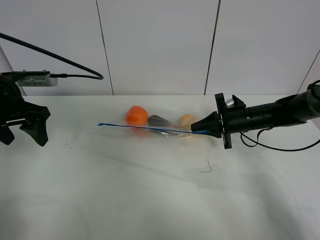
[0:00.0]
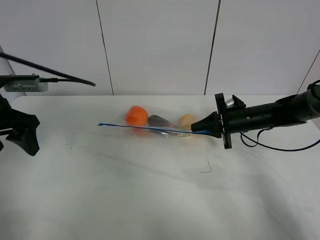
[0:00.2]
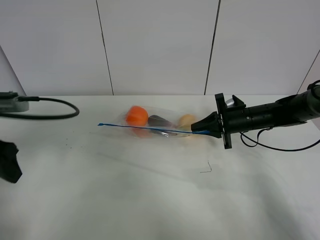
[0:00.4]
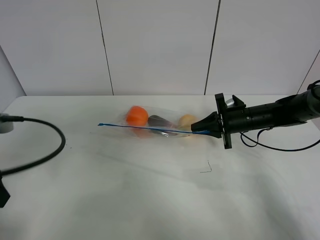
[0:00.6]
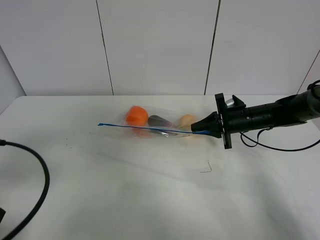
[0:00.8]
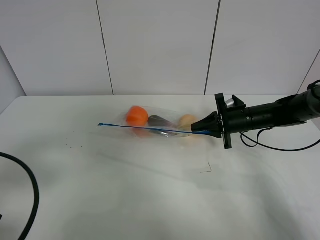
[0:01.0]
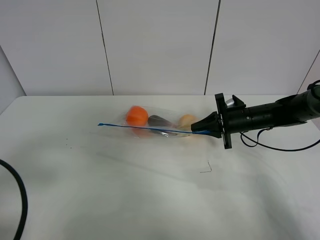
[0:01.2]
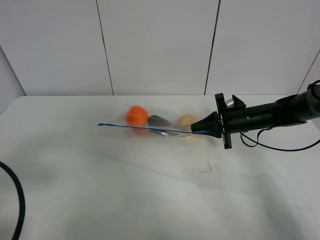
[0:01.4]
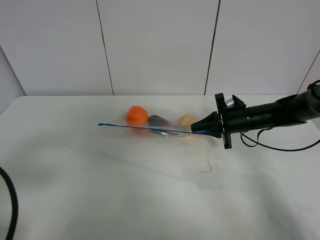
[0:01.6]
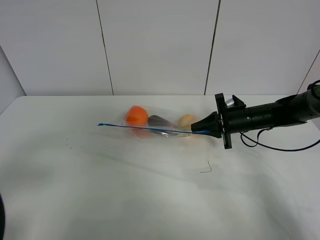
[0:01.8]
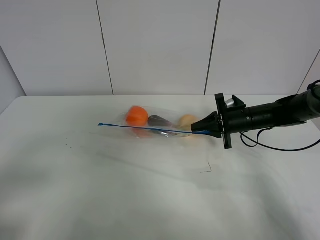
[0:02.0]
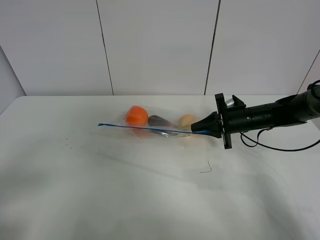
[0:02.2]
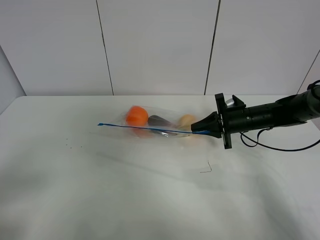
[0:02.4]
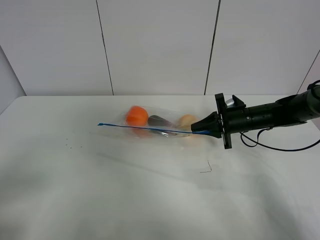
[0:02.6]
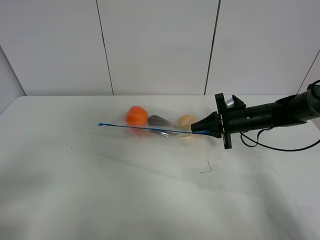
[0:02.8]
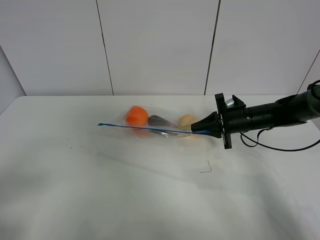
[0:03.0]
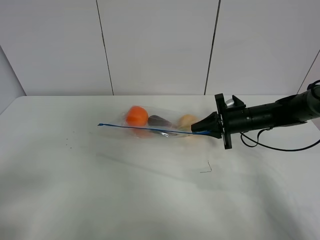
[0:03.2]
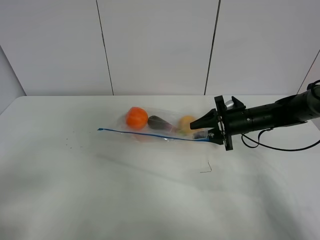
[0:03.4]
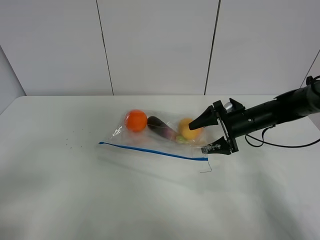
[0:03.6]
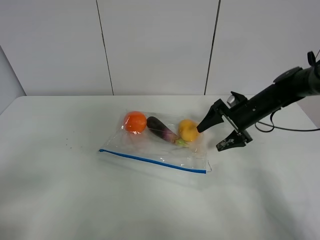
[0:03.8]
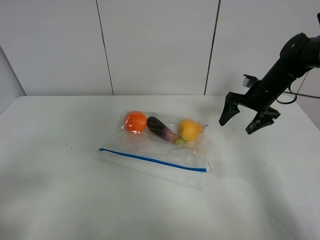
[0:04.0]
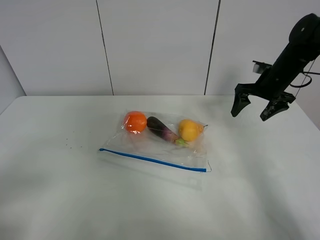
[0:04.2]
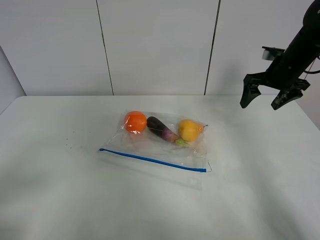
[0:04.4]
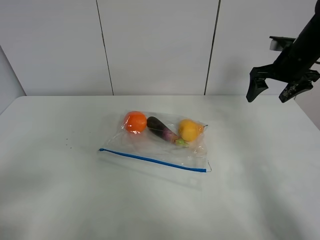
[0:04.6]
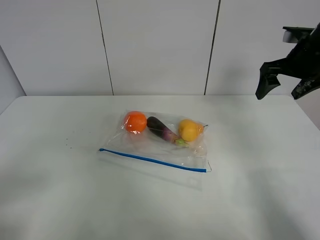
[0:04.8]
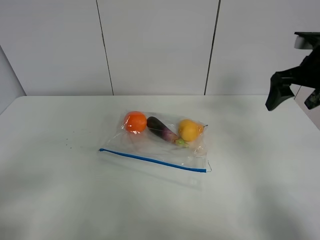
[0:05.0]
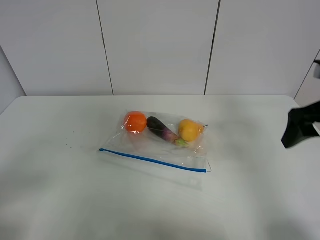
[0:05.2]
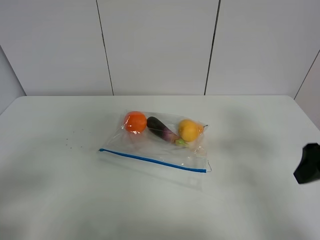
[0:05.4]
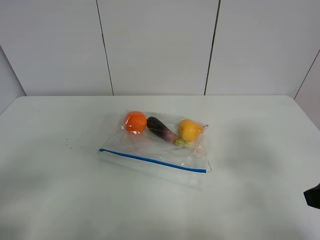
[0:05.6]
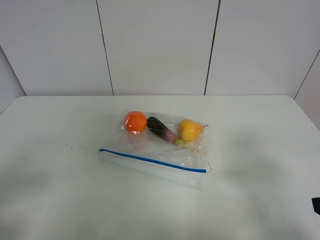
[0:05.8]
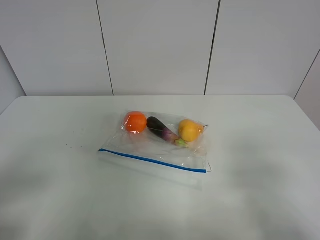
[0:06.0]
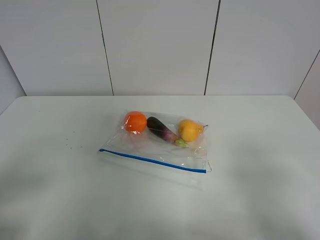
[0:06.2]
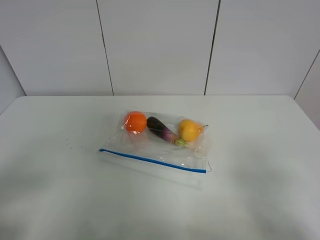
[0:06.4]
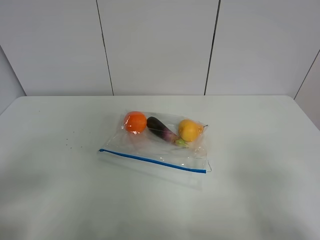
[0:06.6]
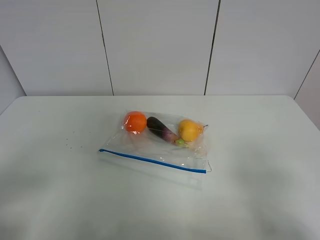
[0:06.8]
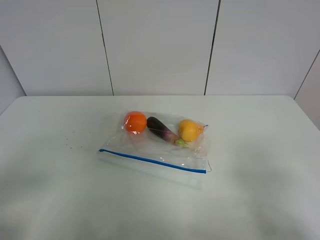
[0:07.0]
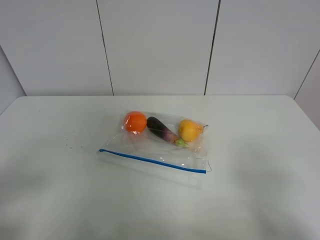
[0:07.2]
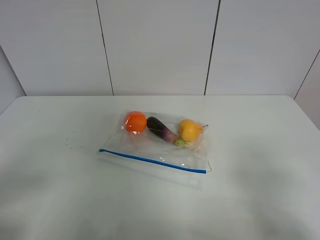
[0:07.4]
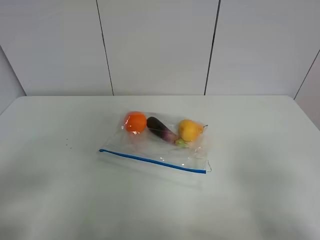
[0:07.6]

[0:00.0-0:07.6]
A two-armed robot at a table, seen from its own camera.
Step, 0:00.0 to 0:04.0: Place the fruit bag with right gripper.
0:00.0 to 0:01.6: The left gripper heads backward, covering some 20 cm.
0:01.6 to 0:03.0: The left gripper travels backward by some 5 cm.
0:03.0 to 0:04.6: The right gripper travels upward and to the right by approximately 20 cm, and opens up.
0:04.6 to 0:06.0: The right gripper heads backward, covering roughly 35 cm.

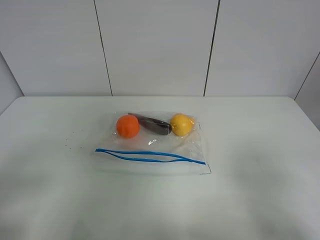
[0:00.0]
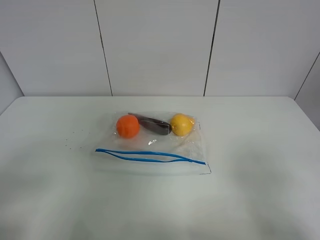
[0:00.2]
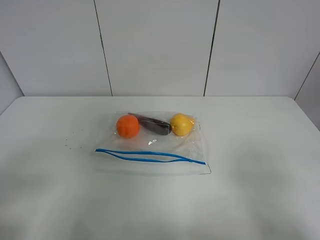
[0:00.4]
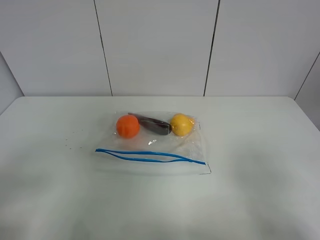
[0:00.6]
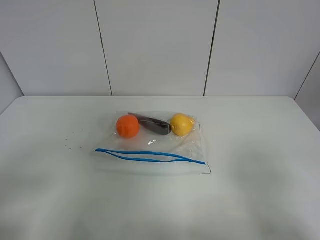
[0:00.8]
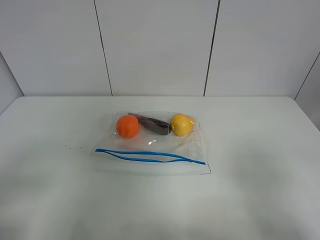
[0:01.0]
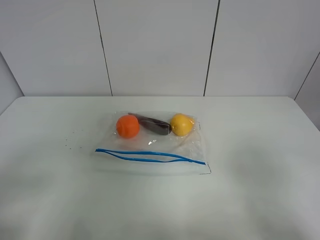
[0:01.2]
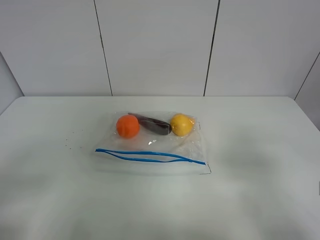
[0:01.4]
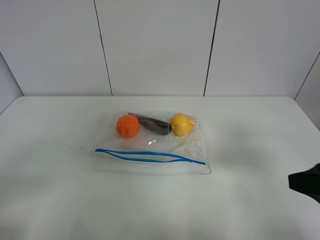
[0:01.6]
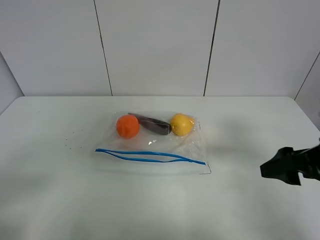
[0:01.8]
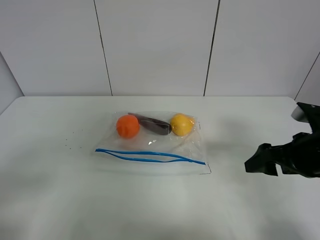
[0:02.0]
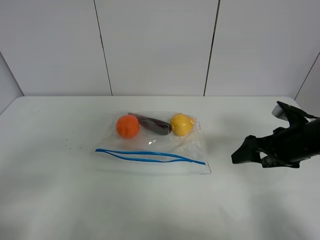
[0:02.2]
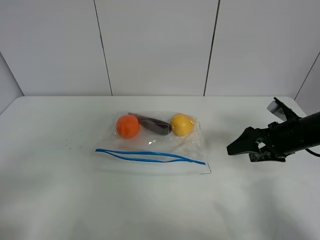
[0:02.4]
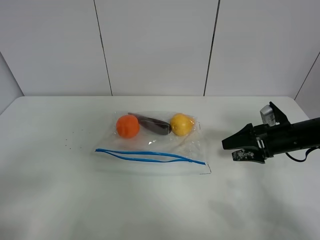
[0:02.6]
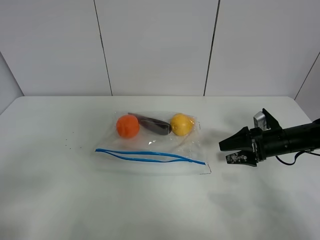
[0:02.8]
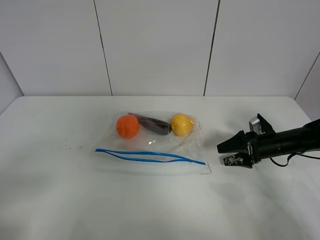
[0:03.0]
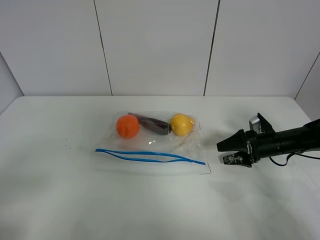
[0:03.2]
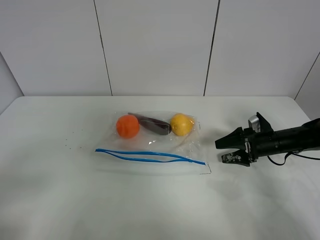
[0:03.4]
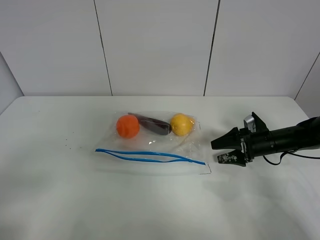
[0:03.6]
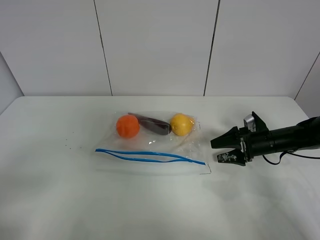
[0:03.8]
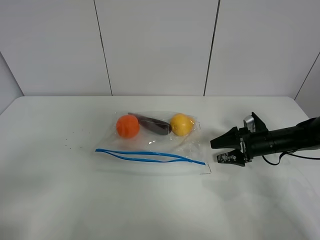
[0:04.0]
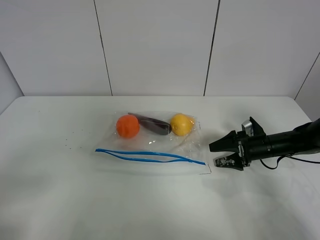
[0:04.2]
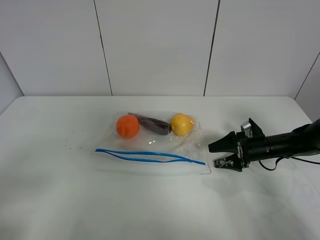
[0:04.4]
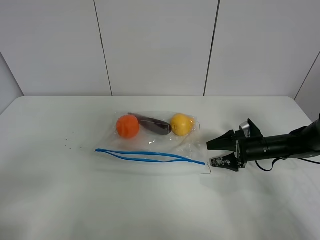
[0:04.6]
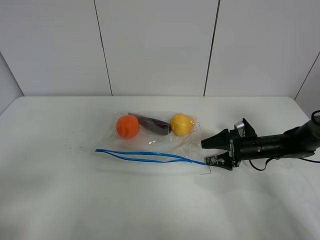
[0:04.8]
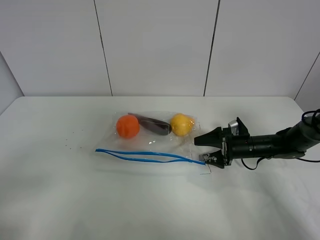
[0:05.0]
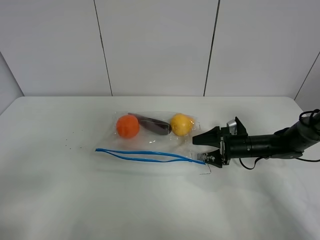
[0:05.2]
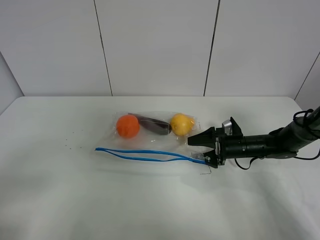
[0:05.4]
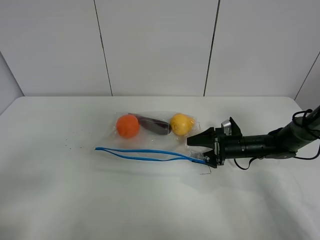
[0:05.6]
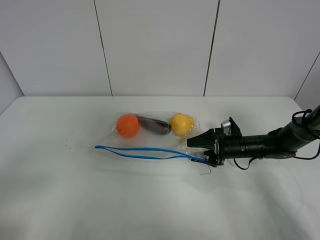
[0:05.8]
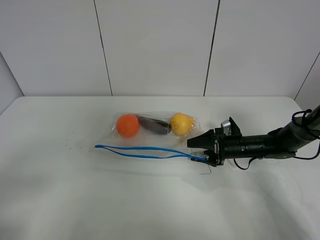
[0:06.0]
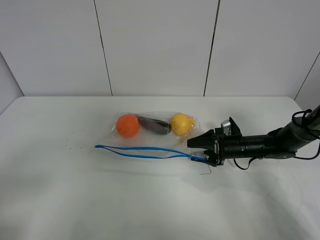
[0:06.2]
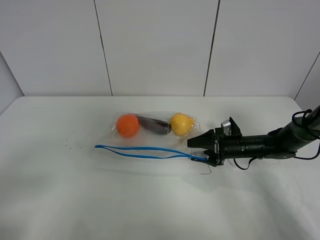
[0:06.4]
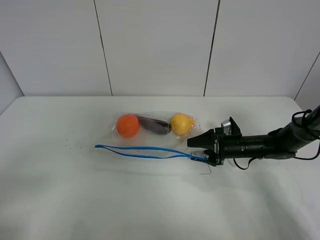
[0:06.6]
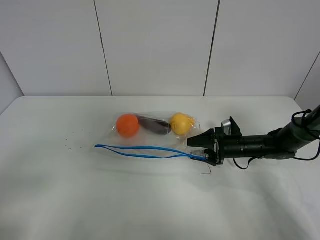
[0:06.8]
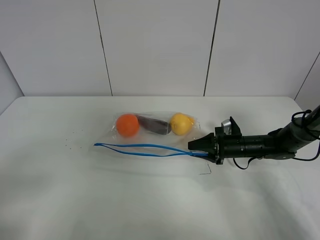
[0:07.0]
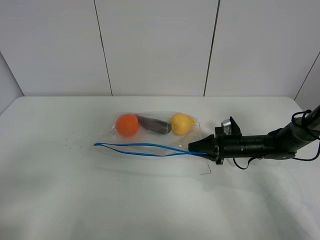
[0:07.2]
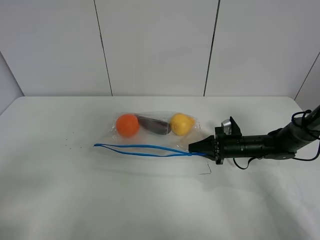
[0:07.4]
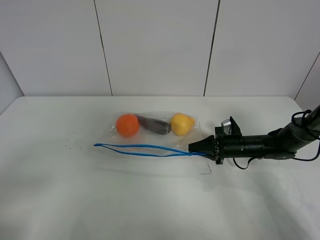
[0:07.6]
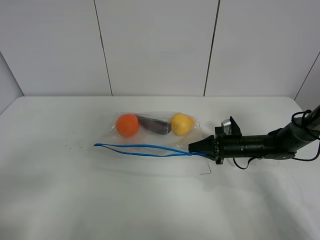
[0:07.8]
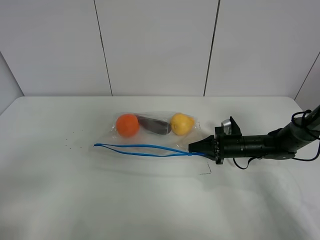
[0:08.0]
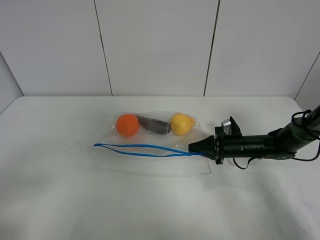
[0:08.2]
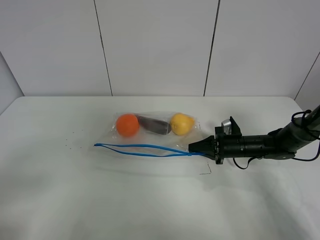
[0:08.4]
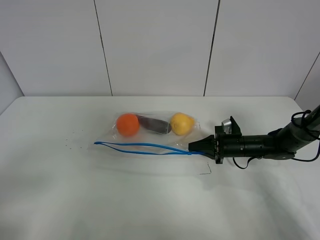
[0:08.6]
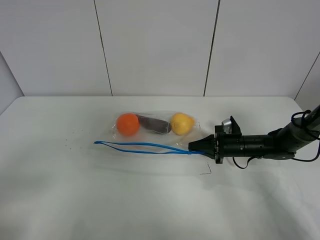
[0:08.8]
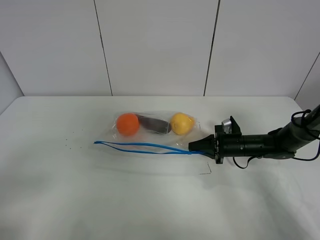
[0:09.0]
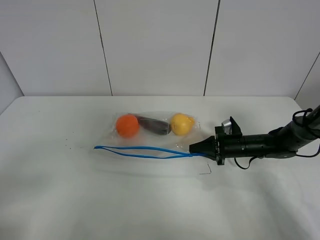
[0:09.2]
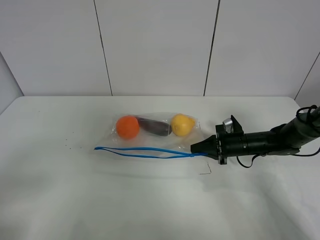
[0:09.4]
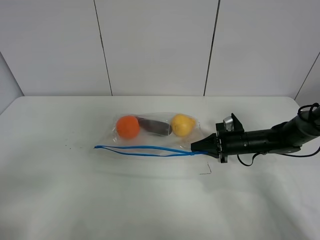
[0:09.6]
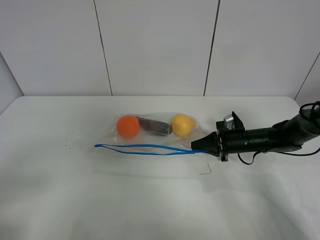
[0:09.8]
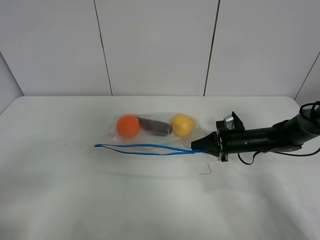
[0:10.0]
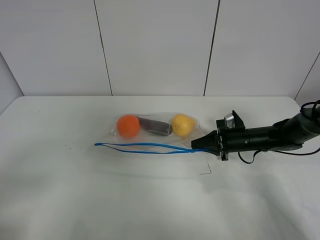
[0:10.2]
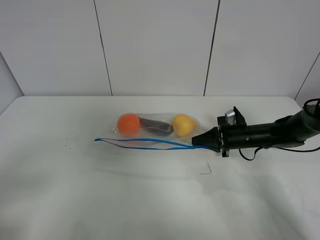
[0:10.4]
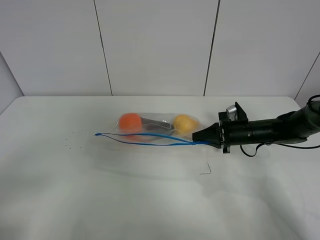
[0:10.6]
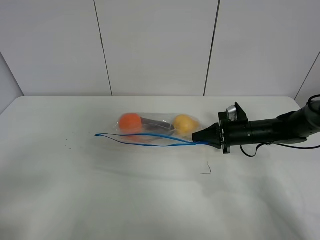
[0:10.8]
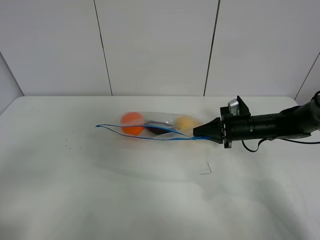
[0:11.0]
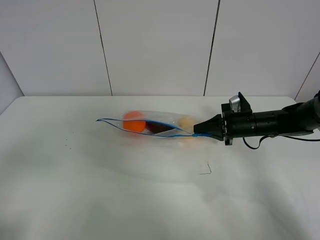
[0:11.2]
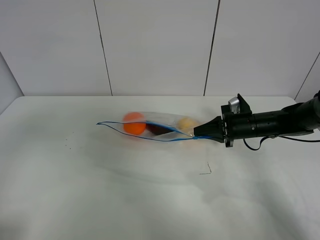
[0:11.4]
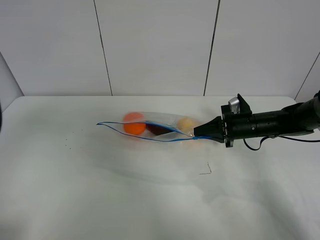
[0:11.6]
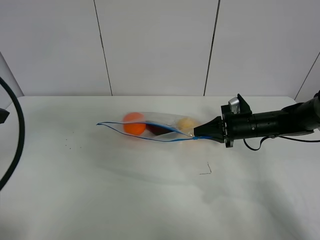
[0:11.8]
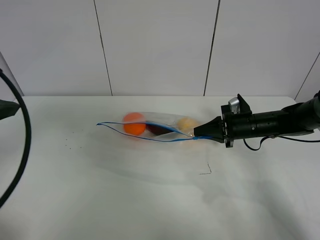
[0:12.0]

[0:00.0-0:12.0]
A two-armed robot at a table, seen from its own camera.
Step, 0:00.0 to 0:07.4: Grasp the fruit bag with right gripper.
Step, 0:07.6 to 0:11.2: Lift the fruit bag with your right gripper.
0:00.0 to 0:01.6: The right gripper goes roughly 10 cm forward.
0:01.6 to 0:03.0: The right gripper goes about 30 cm forward and downward.
0:03.0 to 0:04.4: There are only small adjustments of the grippers.
0:04.4 to 0:06.0: The right gripper is displaced to the left by approximately 5 cm.
0:06.0 to 0:07.6: The right gripper closes.
0:07.6 to 0:09.0: The two grippers keep their place.
0:09.0 to 0:10.4: The grippers make only small movements.
0:10.4 to 0:12.0: The left gripper shifts roughly 20 cm forward and upward.

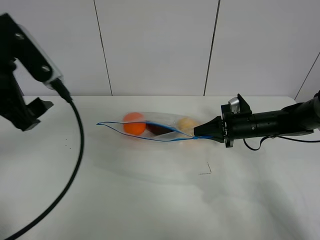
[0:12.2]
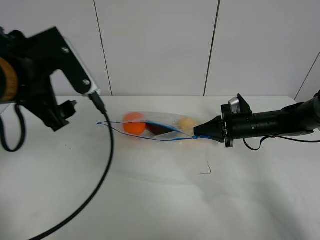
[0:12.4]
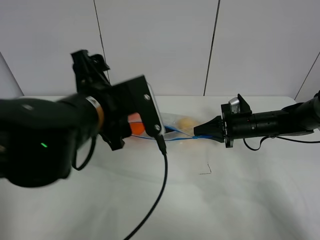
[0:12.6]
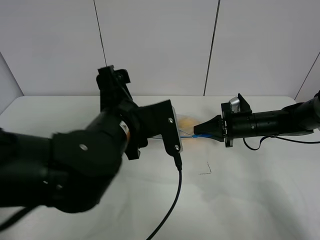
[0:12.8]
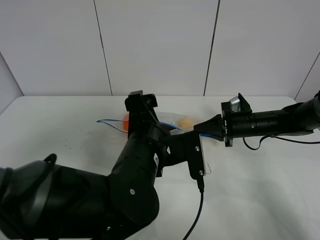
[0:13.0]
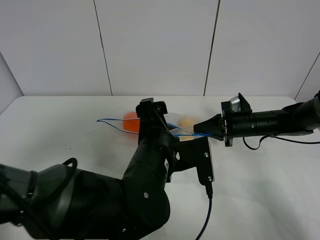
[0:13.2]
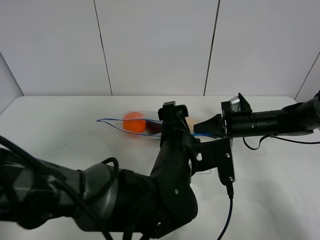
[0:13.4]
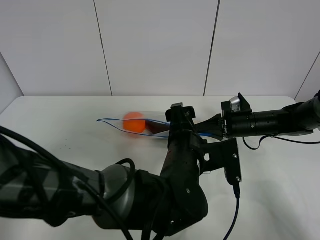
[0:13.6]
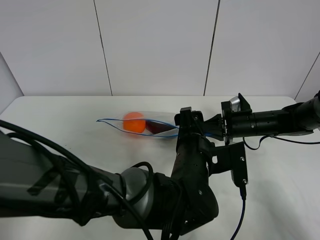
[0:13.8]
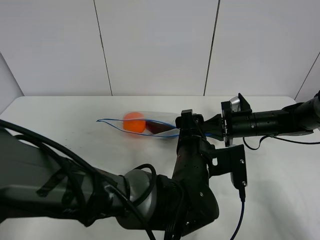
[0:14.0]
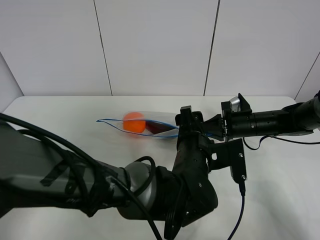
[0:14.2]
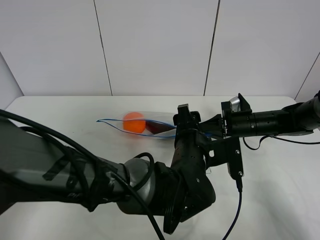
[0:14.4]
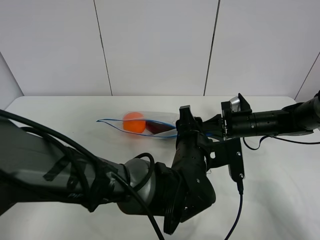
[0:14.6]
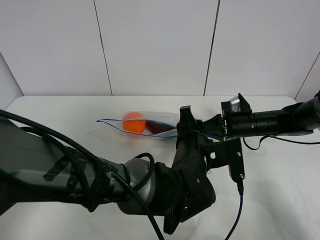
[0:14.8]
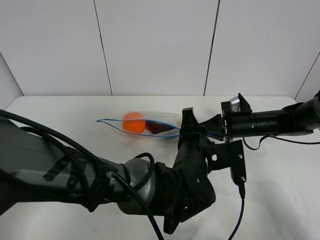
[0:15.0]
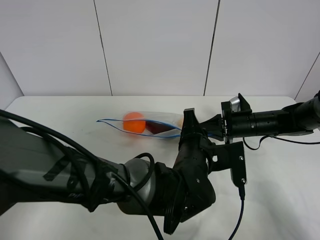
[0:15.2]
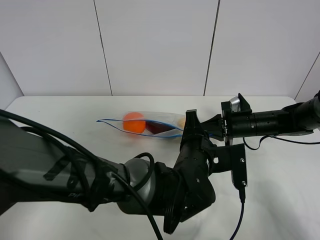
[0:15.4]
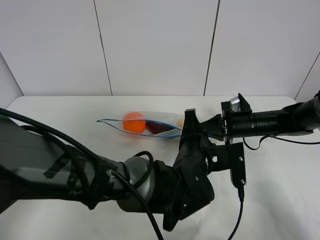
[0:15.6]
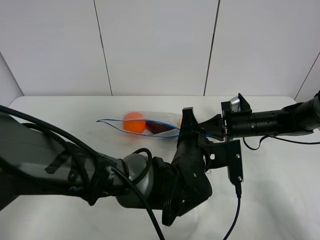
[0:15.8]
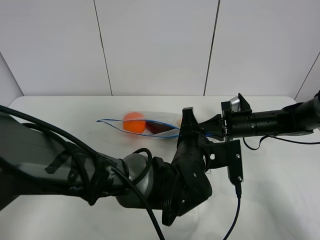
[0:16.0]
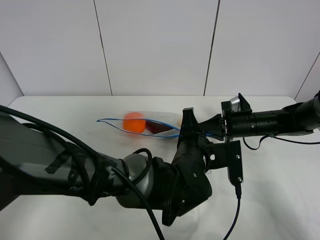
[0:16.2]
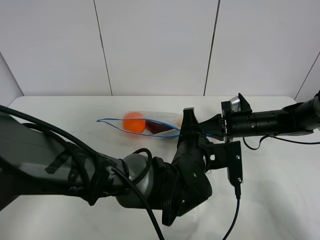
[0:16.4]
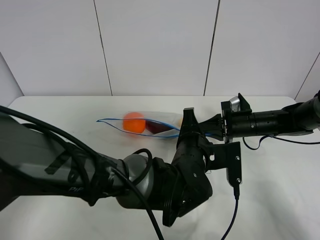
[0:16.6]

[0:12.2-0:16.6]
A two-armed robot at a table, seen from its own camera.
0:12.2 to 0:13.6: The left gripper travels to the right and downward by about 30 cm.
0:13.6 to 0:15.2: The left gripper closes.
0:15.2 to 0:16.6: Both grippers stay put.
